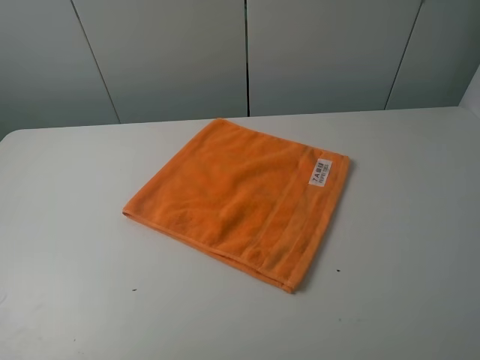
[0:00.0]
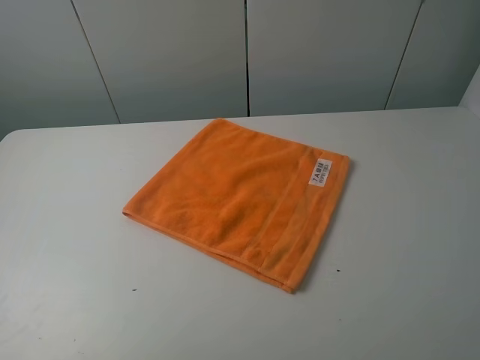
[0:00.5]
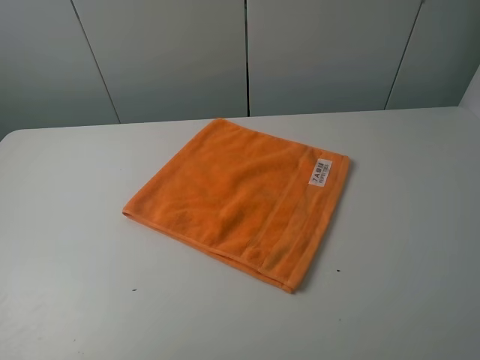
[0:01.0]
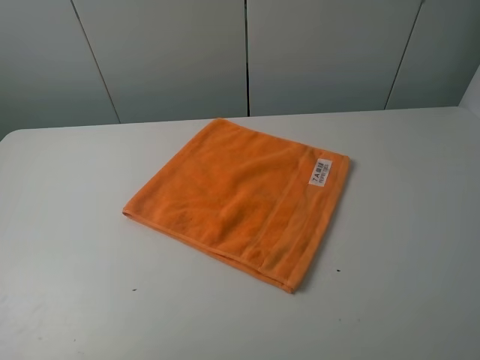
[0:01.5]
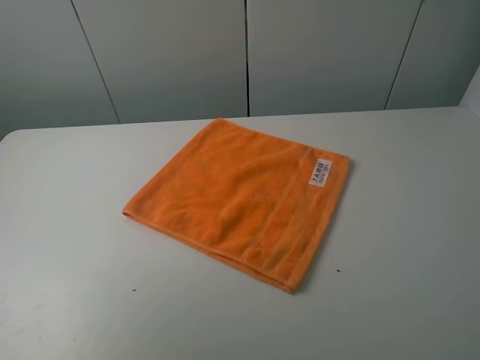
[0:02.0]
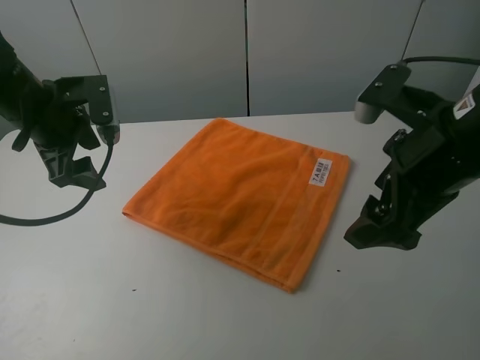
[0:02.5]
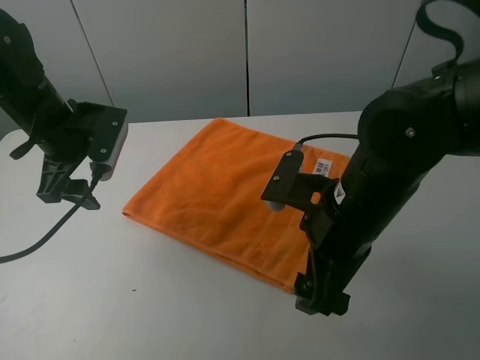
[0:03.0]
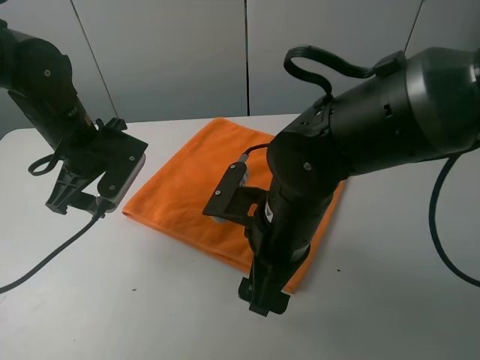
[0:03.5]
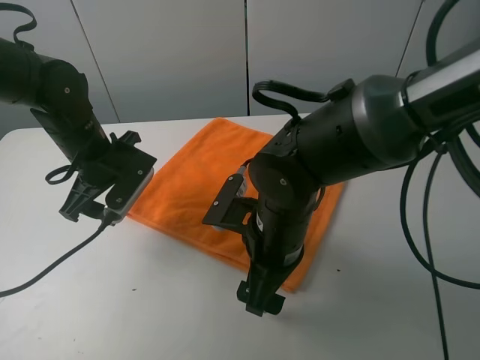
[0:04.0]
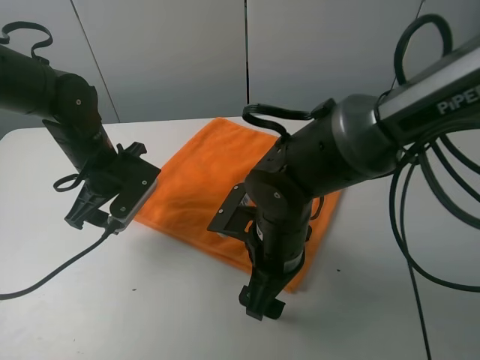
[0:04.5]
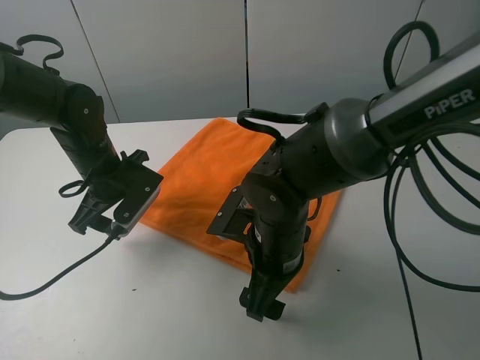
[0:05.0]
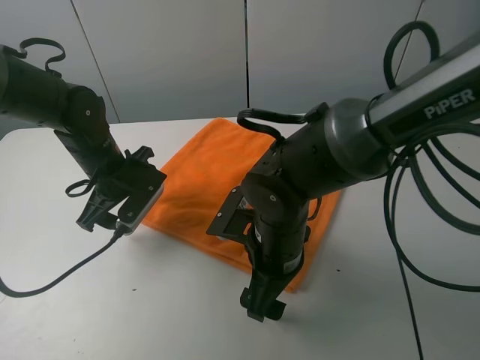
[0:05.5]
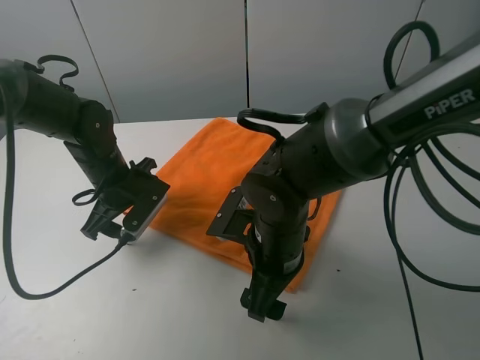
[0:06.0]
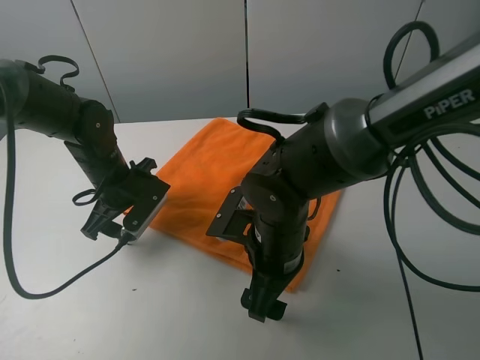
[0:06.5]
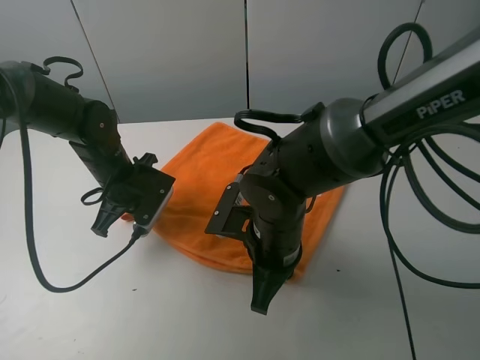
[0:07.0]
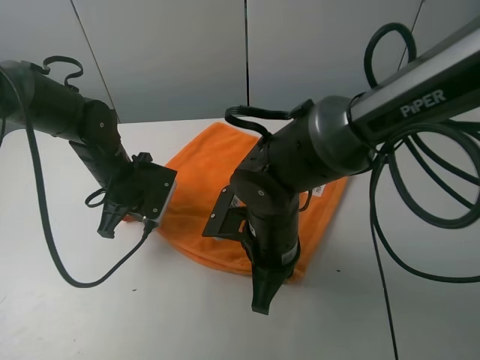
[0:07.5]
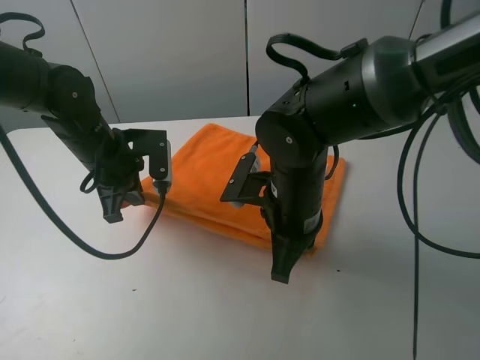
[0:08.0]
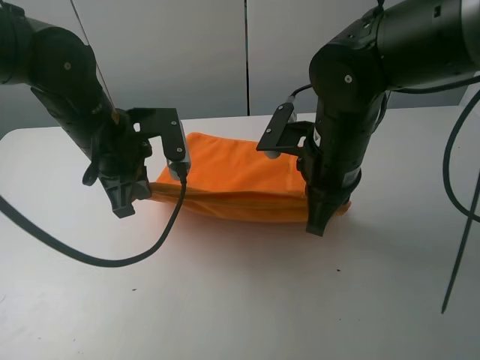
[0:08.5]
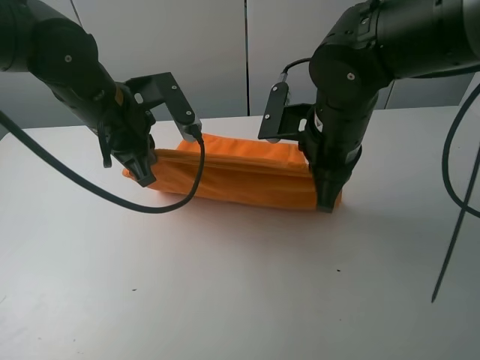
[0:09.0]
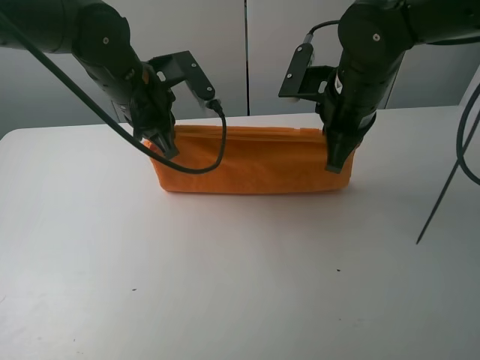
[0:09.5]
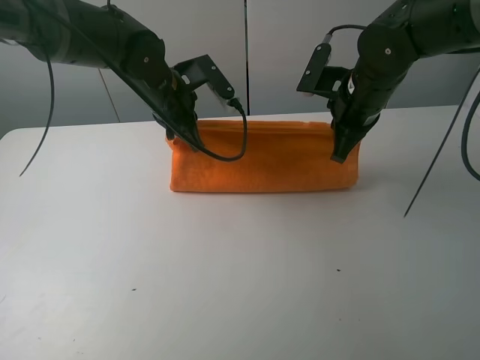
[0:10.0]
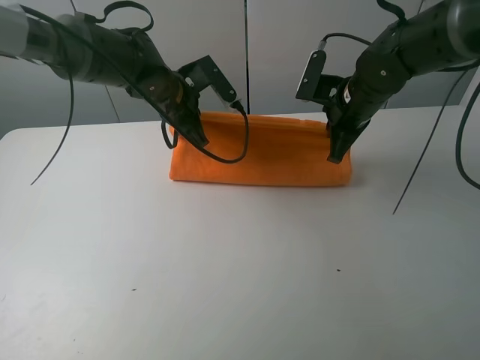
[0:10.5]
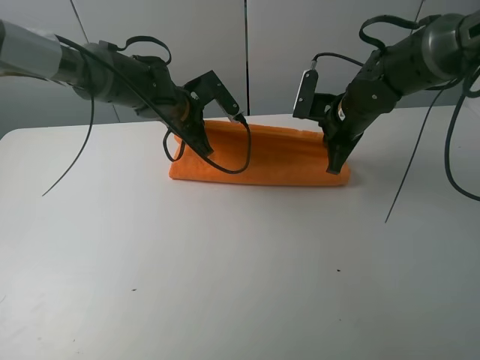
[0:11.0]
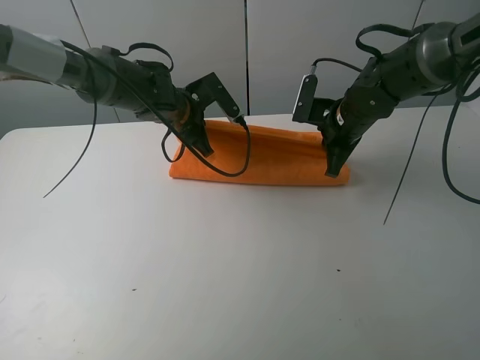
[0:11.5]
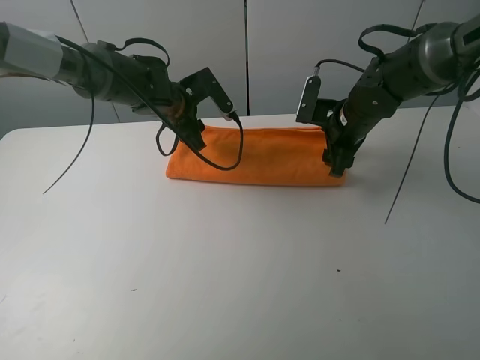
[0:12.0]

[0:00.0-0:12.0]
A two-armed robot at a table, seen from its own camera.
Task of the whole recording: fold the towels on the table.
Step, 0:00.0 to 0:06.5: Grasp the orange towel with the right gripper.
Step, 0:07.5 to 0:12.0: Fold the orange towel upwards with the right gripper.
0:02.0 to 0:04.0: The right gripper moves to the left, downward and forward, roughly 30 cm; the left gripper shifts approximately 25 cm forward, downward and to the right.
0:04.0 to 0:06.0: The left gripper heads downward, covering some 5 cm.
0:06.0 to 0:08.0: The right gripper moves some 5 cm, and closes, while the left gripper shifts roughly 5 cm upward, and closes its fingers.
0:08.0 to 0:10.0: The right gripper goes some 15 cm forward and to the right. The left gripper travels to the right and forward by about 10 cm.
0:10.0 to 0:12.0: The right gripper heads downward, covering approximately 5 cm, and opens its fingers; the left gripper moves approximately 5 cm, and opens its fingers.

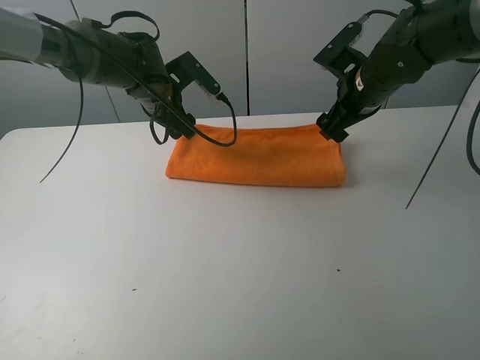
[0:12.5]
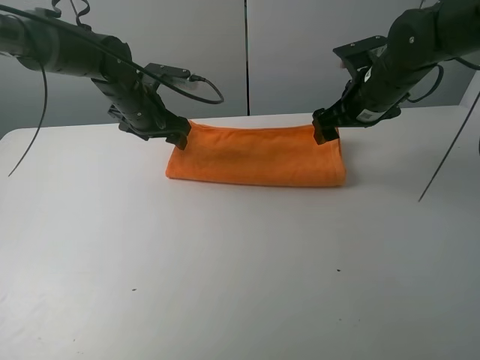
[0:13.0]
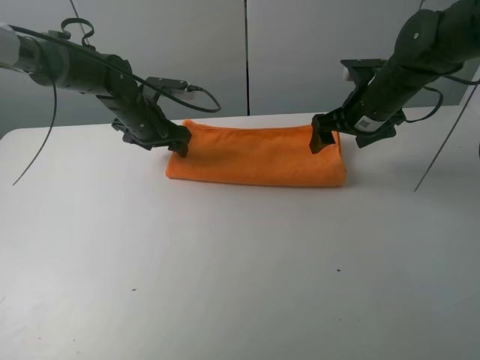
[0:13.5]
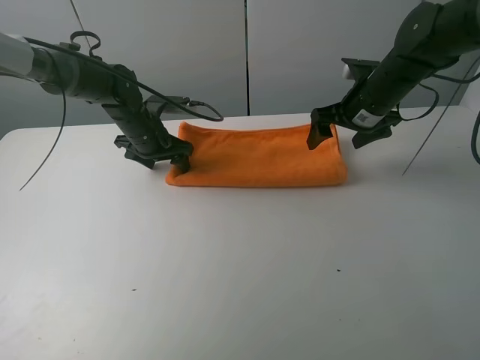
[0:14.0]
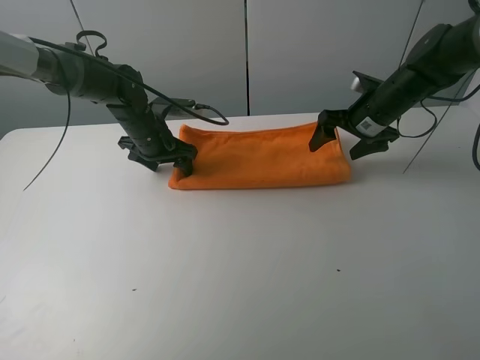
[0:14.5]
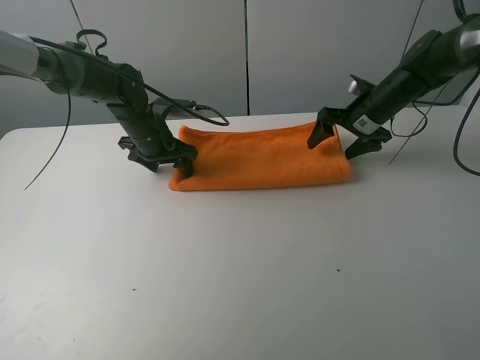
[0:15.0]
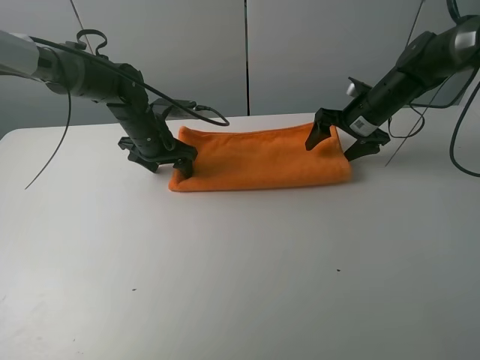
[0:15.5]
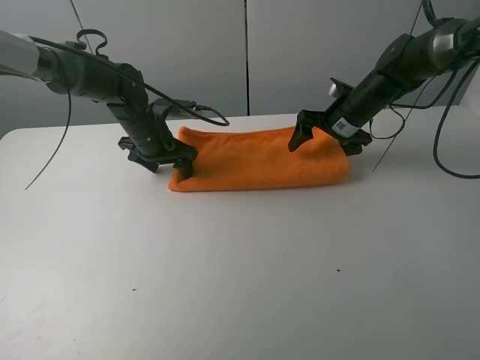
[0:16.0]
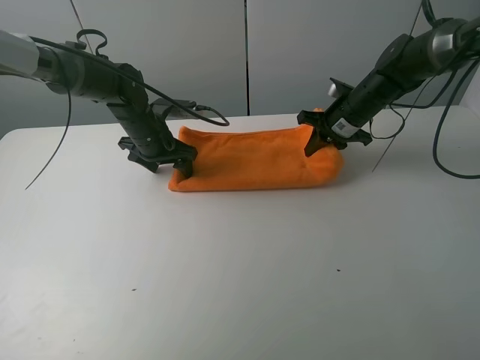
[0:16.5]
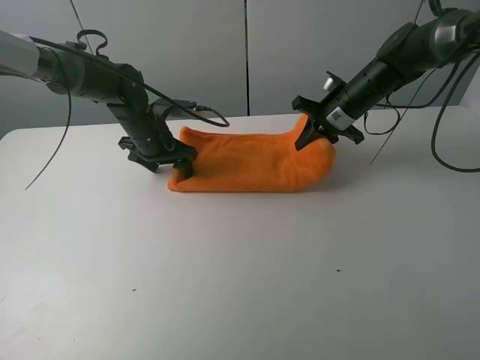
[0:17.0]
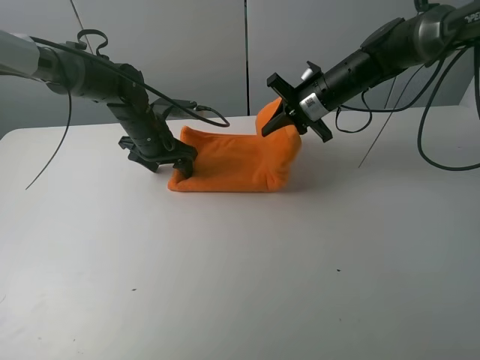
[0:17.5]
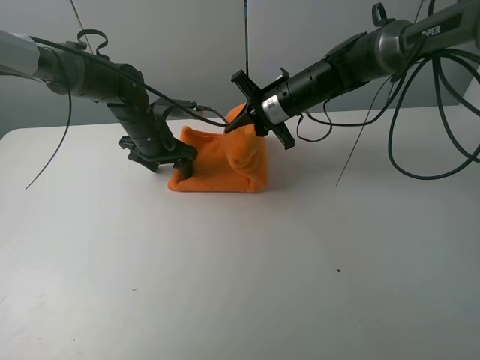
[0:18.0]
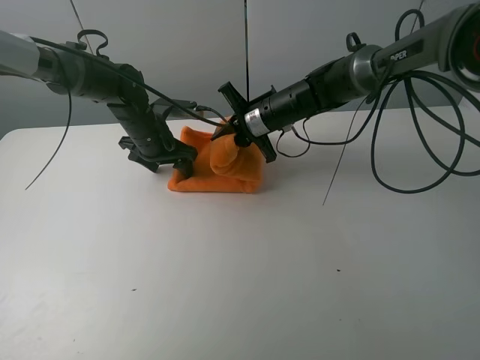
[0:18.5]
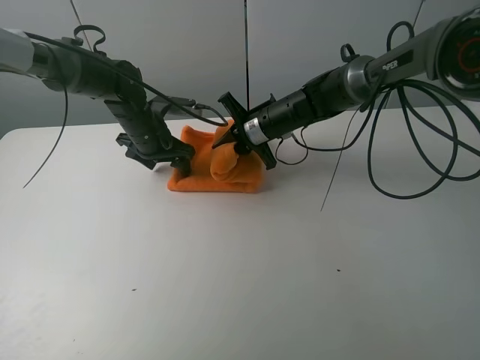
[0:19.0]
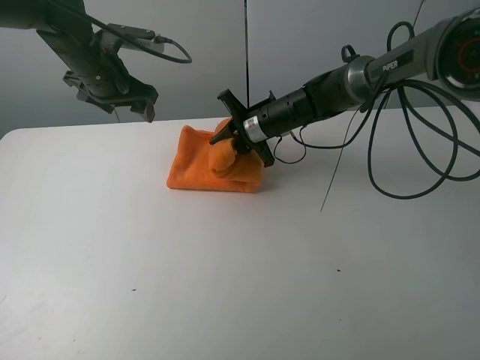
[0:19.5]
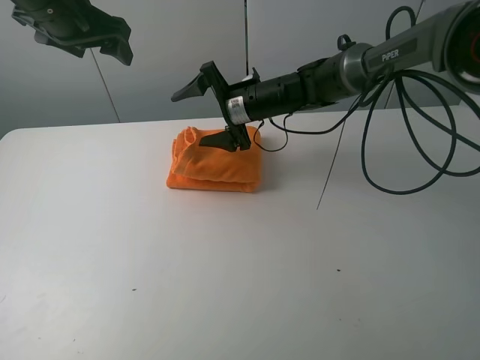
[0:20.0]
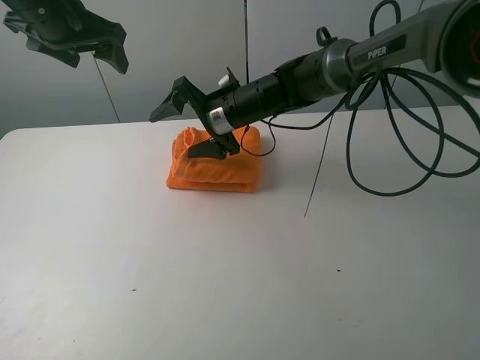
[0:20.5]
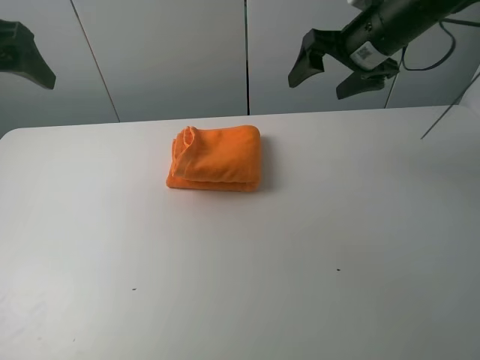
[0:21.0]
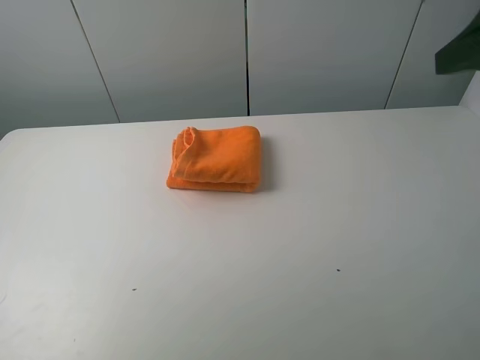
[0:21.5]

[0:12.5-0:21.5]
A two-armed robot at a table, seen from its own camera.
Task of the whole recording: fold the towels on the table.
Step, 0:12.5 to 0:13.5: Press on the orange towel with the left gripper.
Step, 0:14.0 to 0:19.5: Fold the orange towel from right to left with right gripper.
Step, 0:20.0 to 0:20.5: Arrange the orange towel with the right hand.
0:12.5 to 0:14.5: Both grippers travel together downward, roughly 5 cm.
0:14.5 to 0:17.0: The right gripper closes its fingers.
0:17.0 to 0:19.5: The left gripper is displaced upward by approximately 15 cm; the right gripper goes roughly 15 cm to the left.
0:19.5 to 0:21.5: The right gripper shifts approximately 40 cm backward, upward and to the right, and opens up. Meanwhile the left gripper travels backward and upward by about 35 cm.
